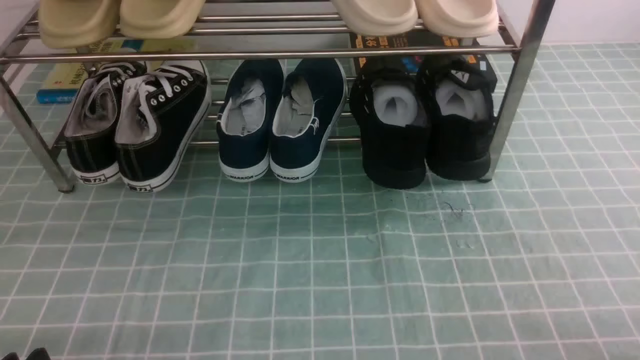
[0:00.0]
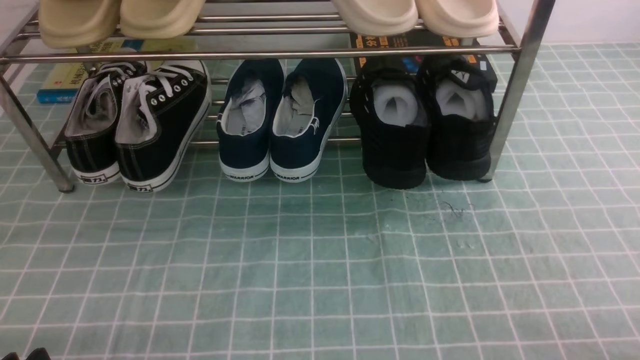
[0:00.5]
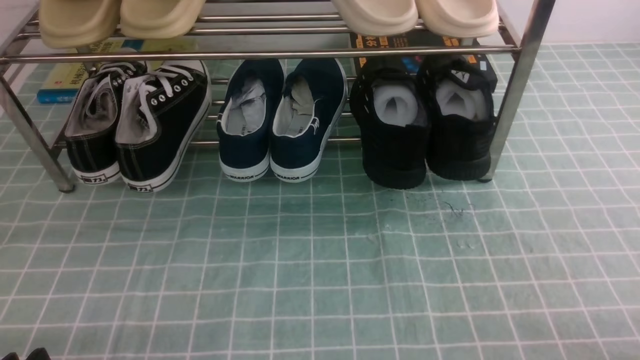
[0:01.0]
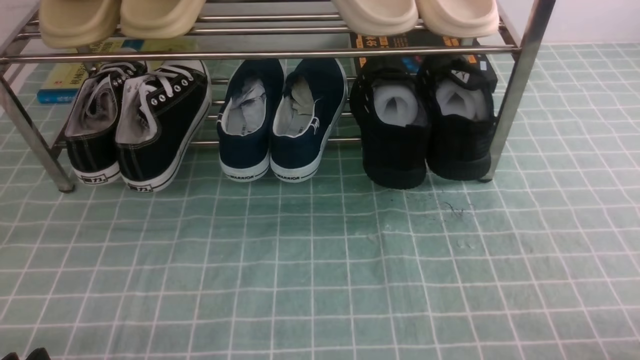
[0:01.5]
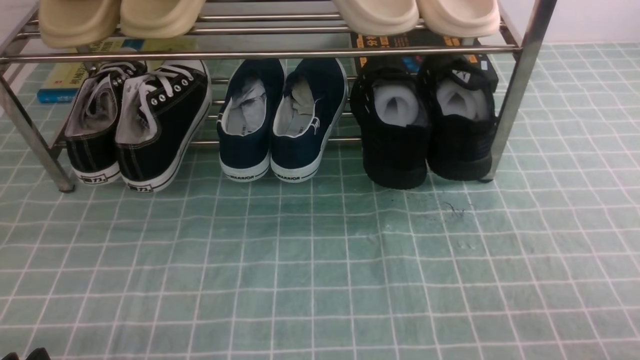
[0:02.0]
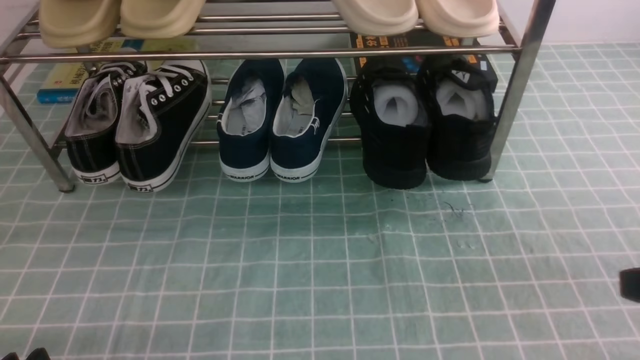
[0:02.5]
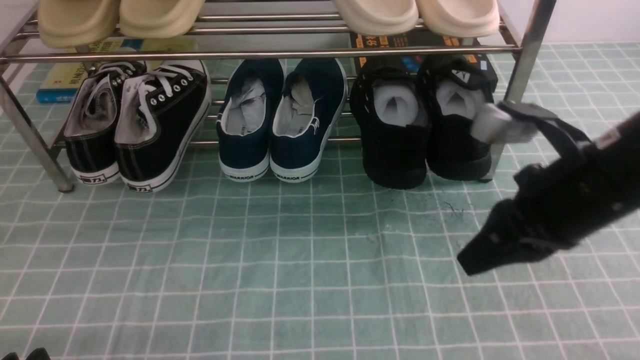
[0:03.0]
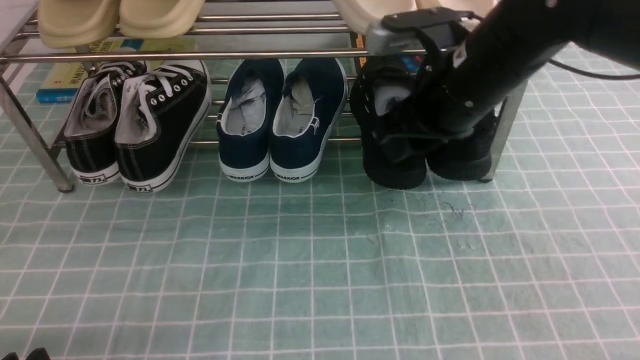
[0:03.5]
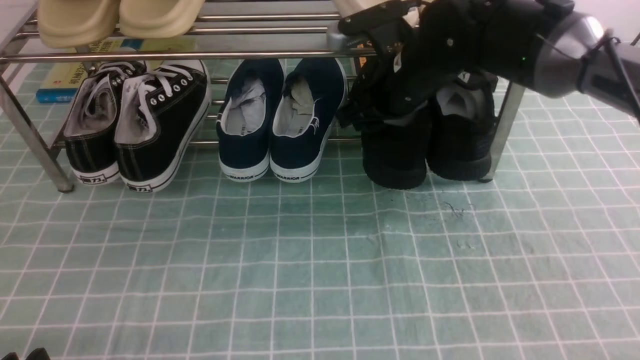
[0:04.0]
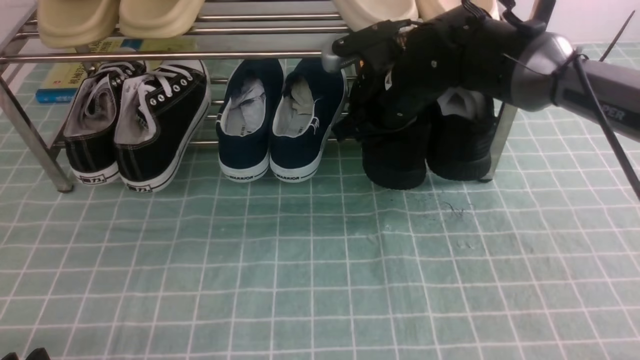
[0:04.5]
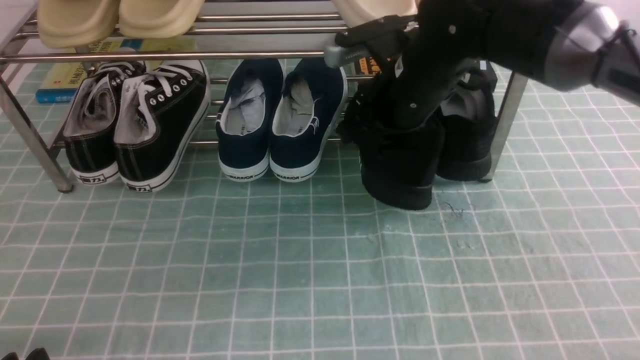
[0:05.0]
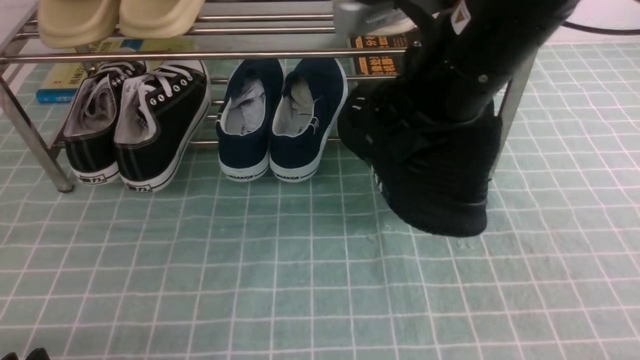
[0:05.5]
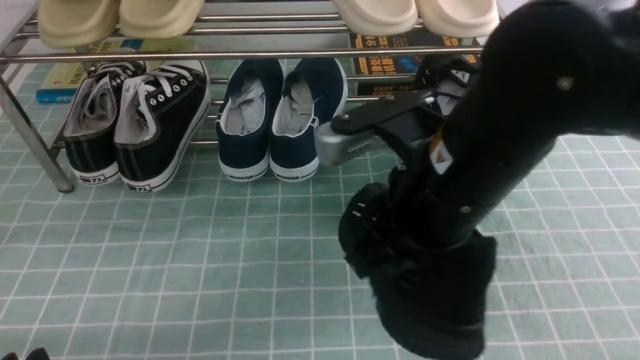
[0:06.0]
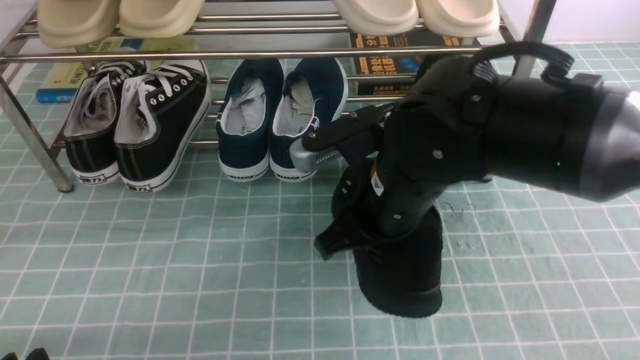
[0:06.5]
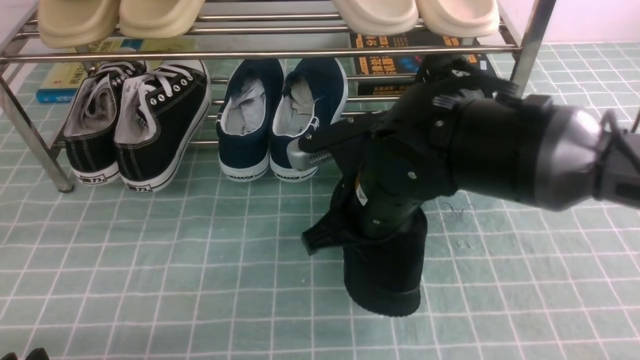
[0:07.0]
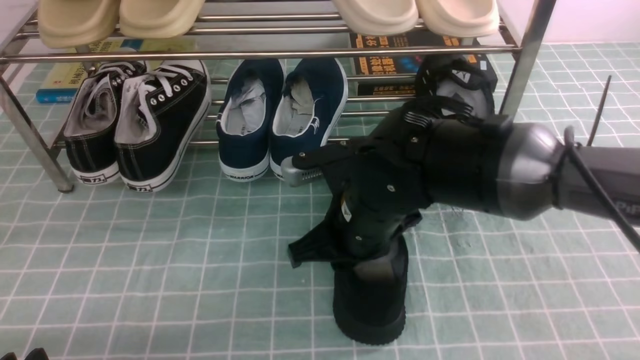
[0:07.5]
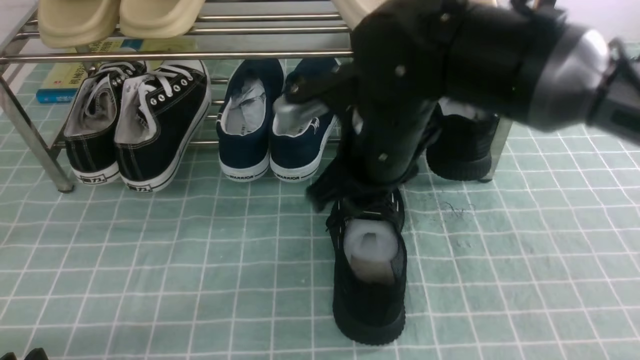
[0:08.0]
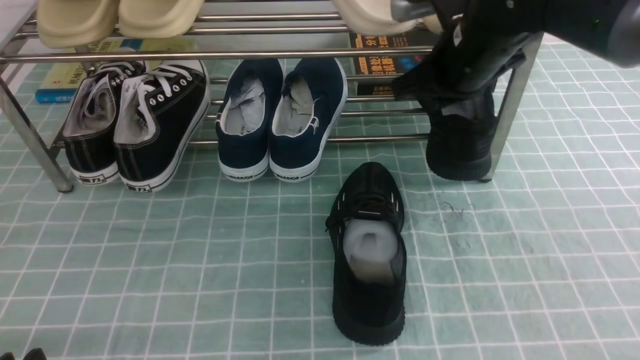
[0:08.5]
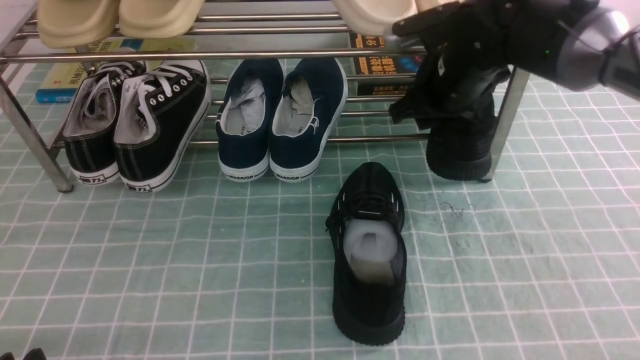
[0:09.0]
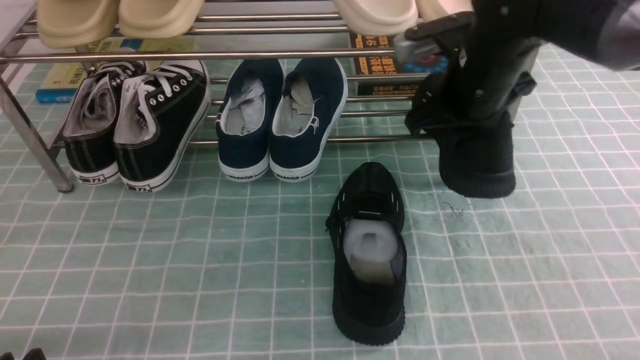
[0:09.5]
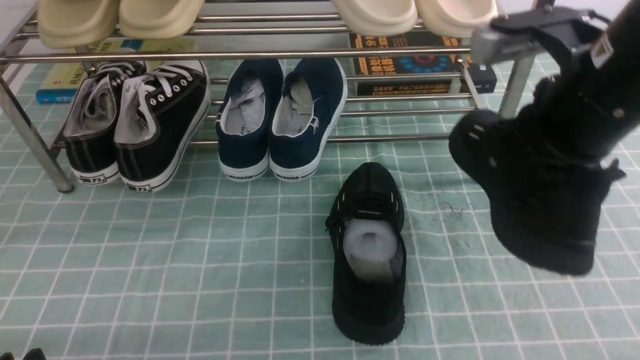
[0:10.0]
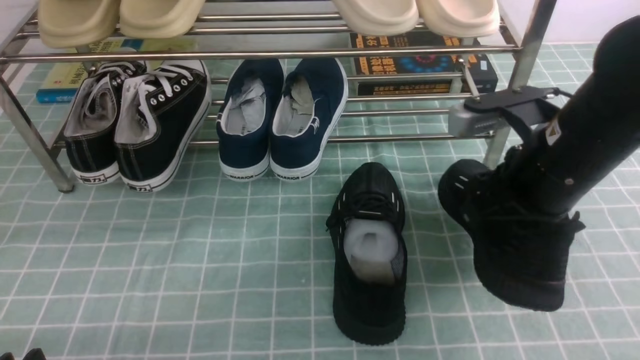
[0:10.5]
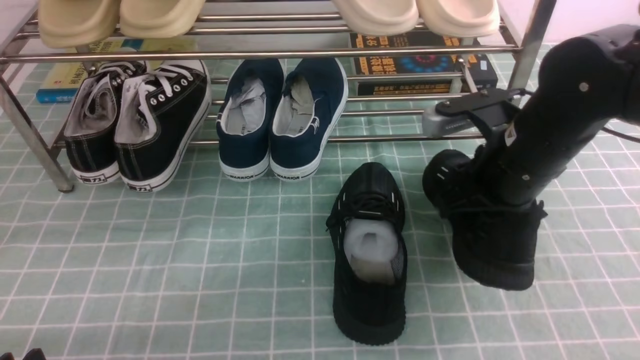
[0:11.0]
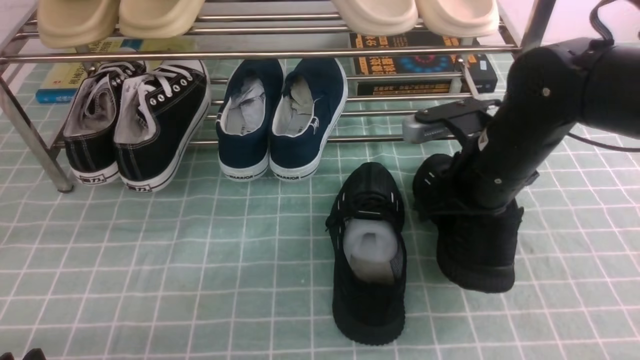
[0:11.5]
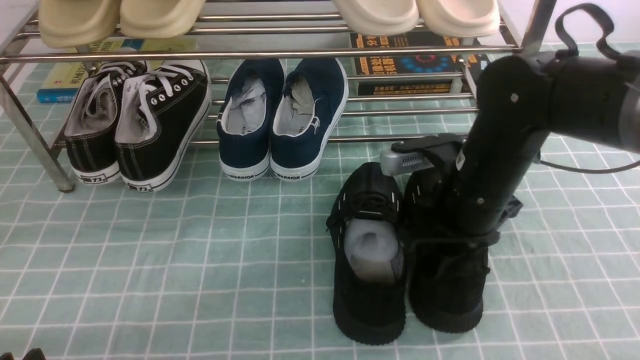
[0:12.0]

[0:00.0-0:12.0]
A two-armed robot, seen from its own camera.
Step, 0:00.0 to 0:04.5: use the right arm to clamp a shoe on the right side of the shoe rack.
Step, 0:05.0 to 0:08.0: use the right arm to take out the clamped shoe from the shoe rack and put it down.
Step, 0:08.5 to 0:09.0: use the right arm to clamp a shoe on the right side of the shoe rack.
0:02.0 to 0:04.0: The right gripper travels forward and to the left by about 40 cm, and opens.
0:04.0 to 0:06.0: The right gripper moves backward, approximately 20 cm, and closes.
0:06.0 to 0:08.0: The right gripper heads forward and downward, covering roughly 10 cm, and opens.
0:08.0 to 0:10.0: The right gripper travels to the right and upward by some 15 cm, and closes up.
0:10.0 to 0:12.0: The right gripper heads downward, covering about 10 cm, and opens.

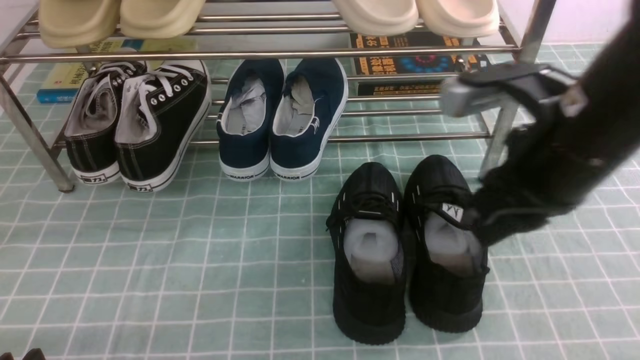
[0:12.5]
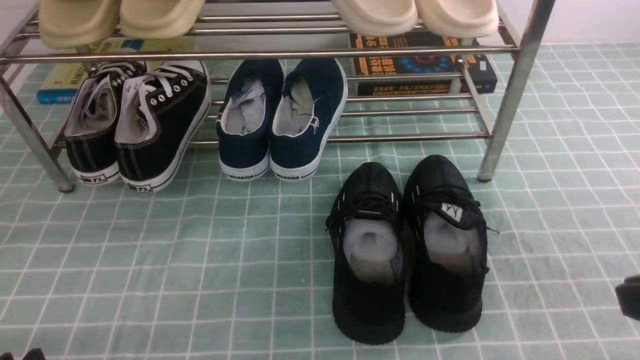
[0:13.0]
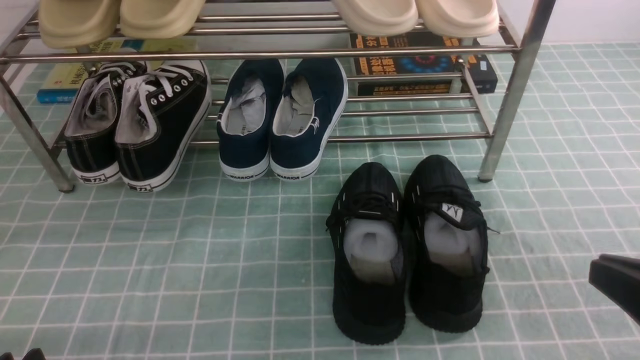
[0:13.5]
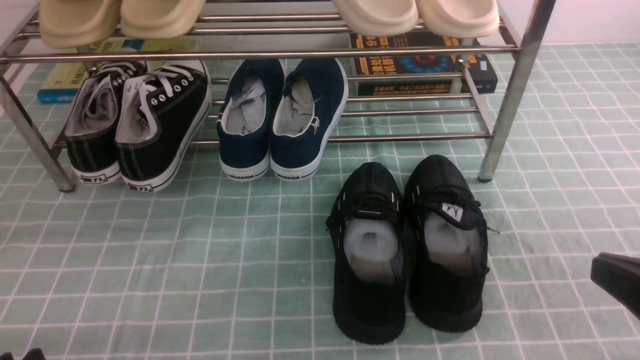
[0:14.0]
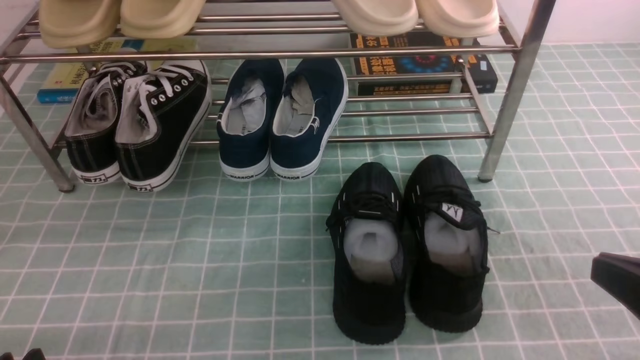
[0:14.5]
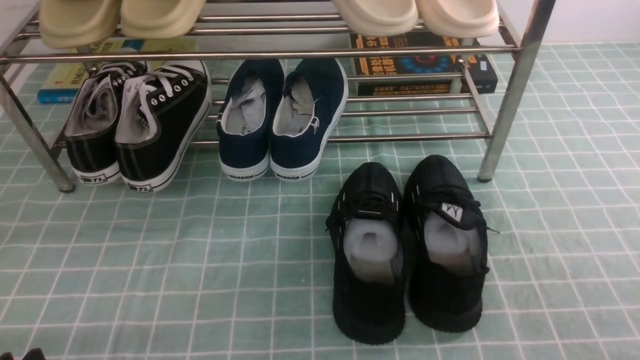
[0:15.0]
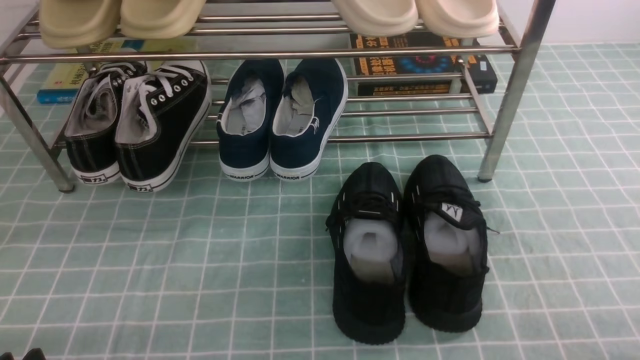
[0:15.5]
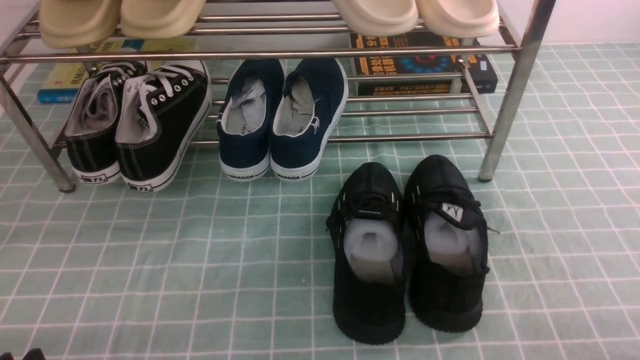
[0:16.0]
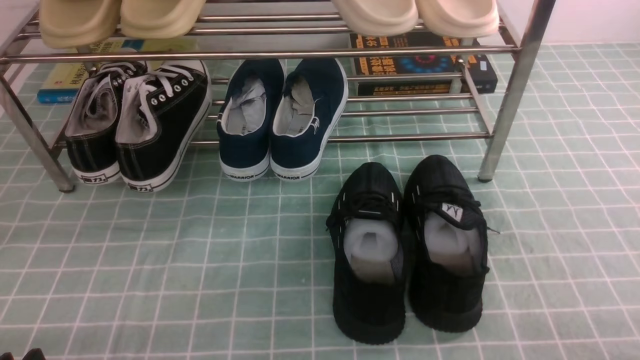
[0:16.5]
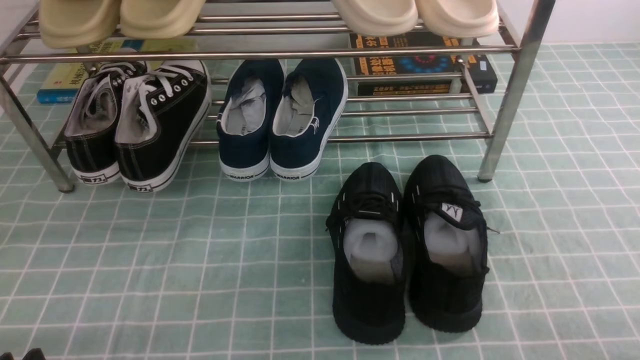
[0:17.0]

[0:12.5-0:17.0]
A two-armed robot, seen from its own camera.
0:12.5 to 0:14.5: The right gripper moves backward and to the right, some 20 cm, and closes its fingers.
0:14.5 to 0:17.0: The right gripper goes some 10 cm downward and to the right.
